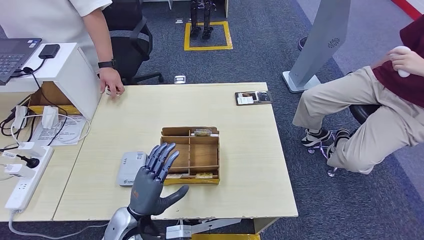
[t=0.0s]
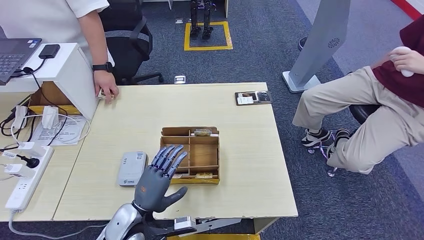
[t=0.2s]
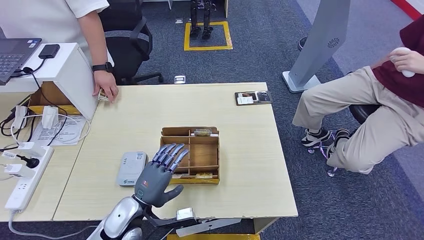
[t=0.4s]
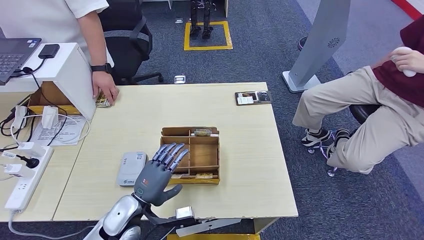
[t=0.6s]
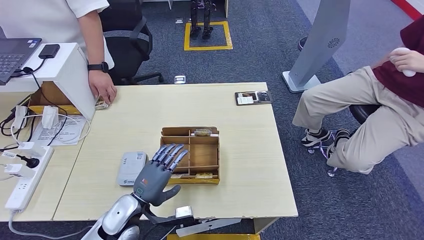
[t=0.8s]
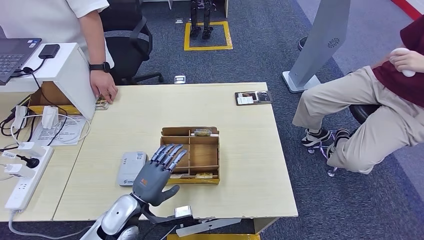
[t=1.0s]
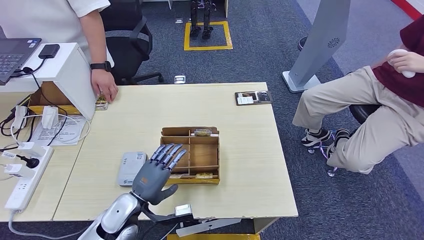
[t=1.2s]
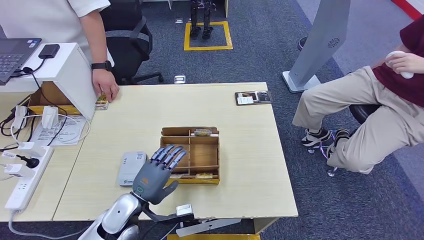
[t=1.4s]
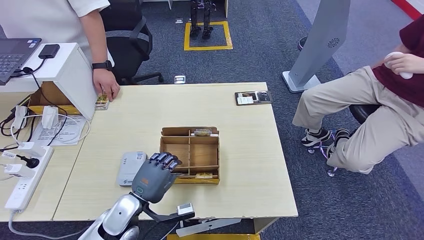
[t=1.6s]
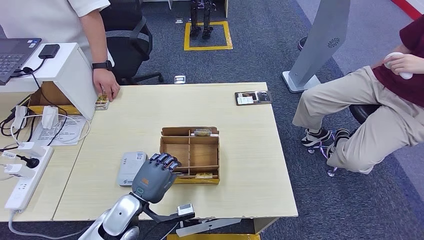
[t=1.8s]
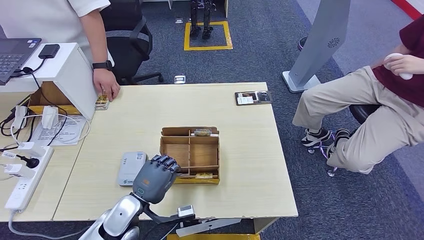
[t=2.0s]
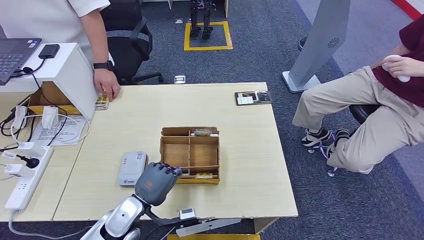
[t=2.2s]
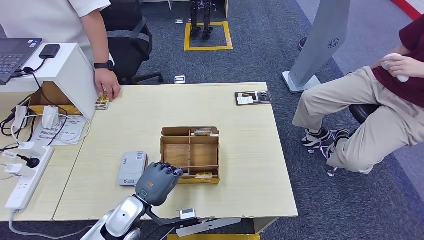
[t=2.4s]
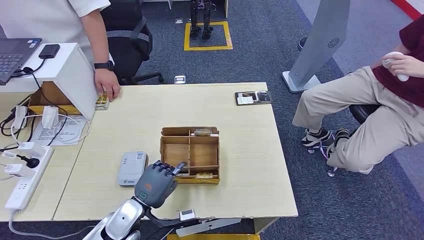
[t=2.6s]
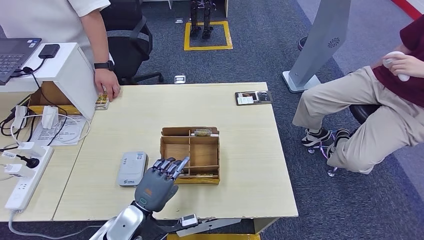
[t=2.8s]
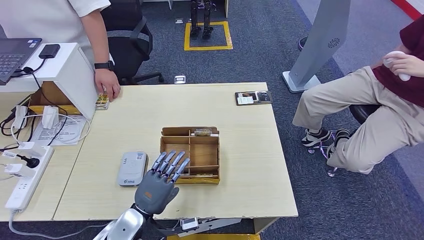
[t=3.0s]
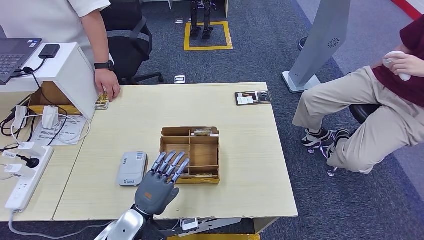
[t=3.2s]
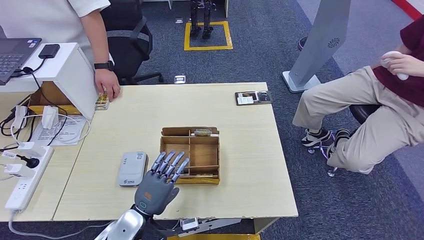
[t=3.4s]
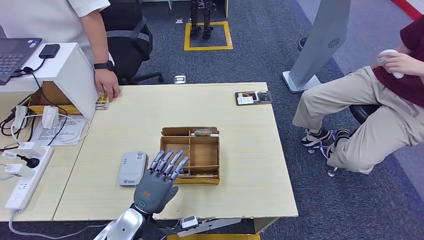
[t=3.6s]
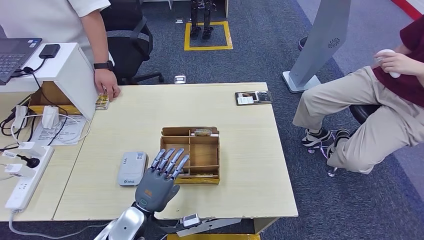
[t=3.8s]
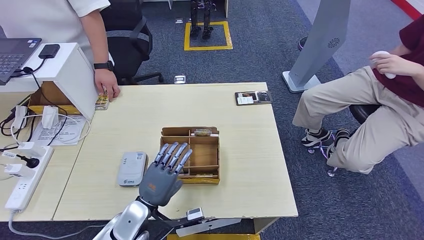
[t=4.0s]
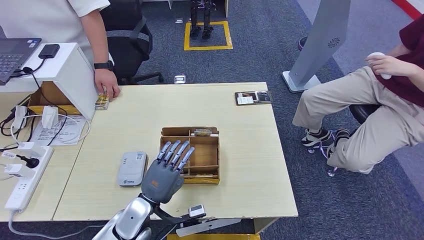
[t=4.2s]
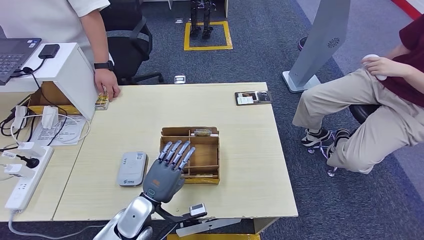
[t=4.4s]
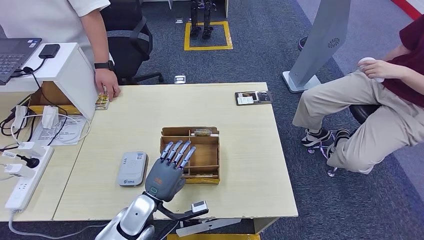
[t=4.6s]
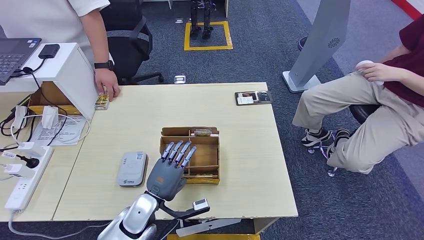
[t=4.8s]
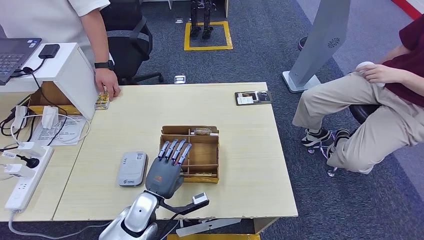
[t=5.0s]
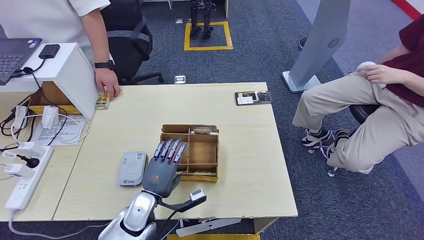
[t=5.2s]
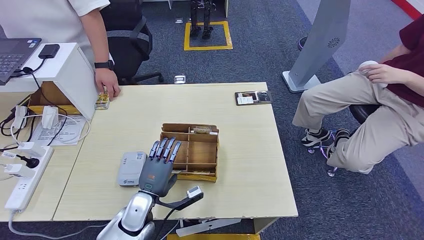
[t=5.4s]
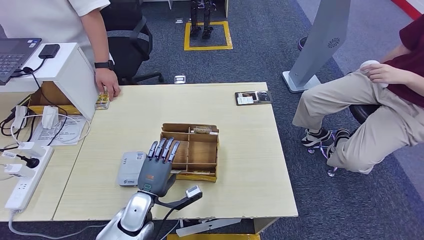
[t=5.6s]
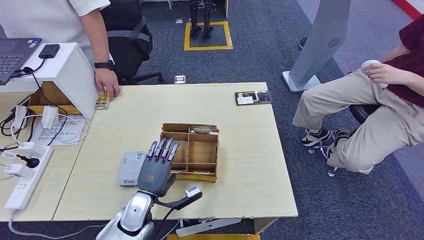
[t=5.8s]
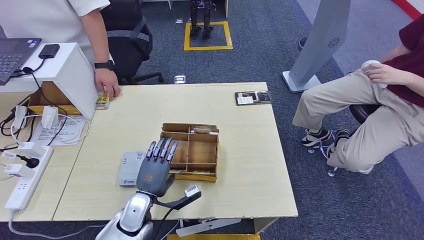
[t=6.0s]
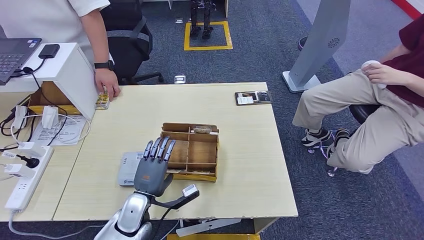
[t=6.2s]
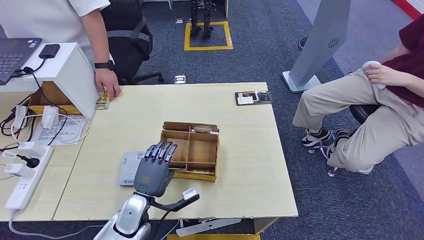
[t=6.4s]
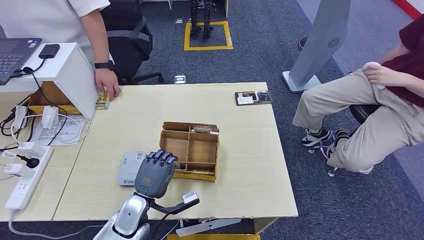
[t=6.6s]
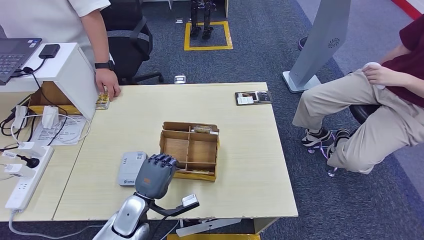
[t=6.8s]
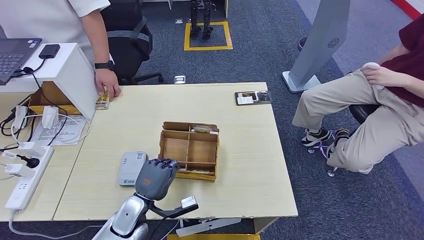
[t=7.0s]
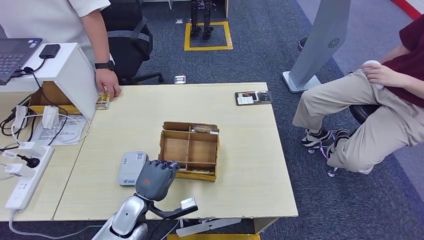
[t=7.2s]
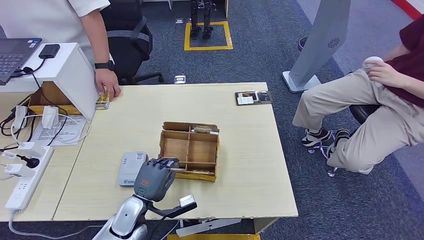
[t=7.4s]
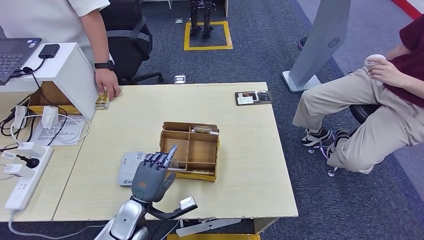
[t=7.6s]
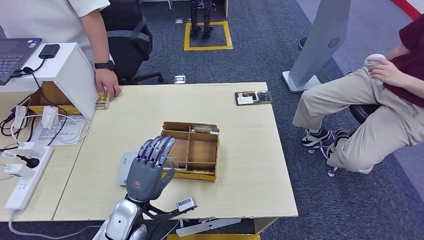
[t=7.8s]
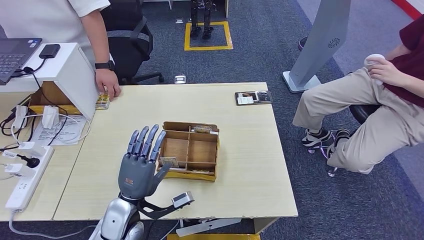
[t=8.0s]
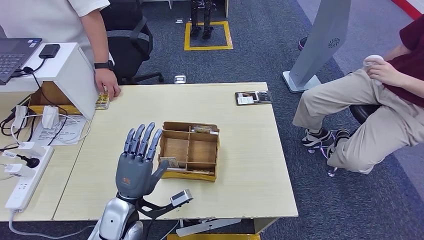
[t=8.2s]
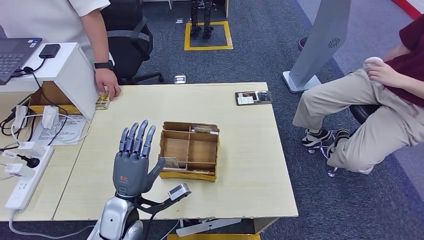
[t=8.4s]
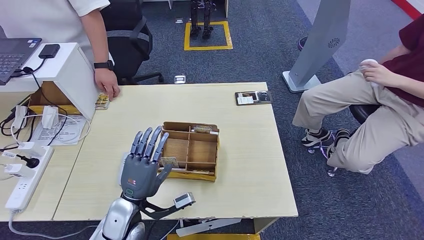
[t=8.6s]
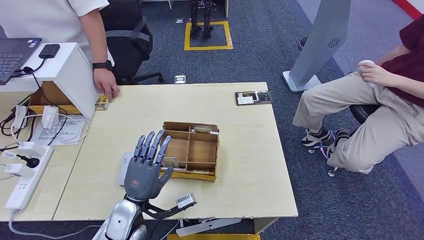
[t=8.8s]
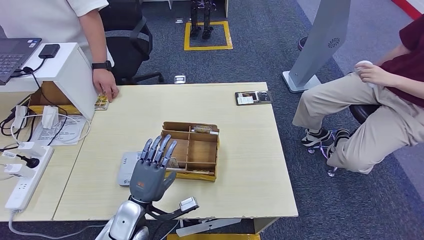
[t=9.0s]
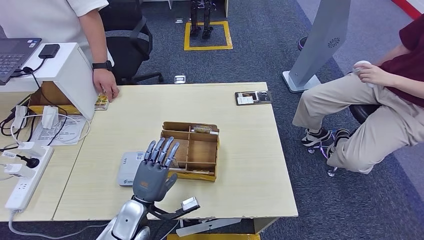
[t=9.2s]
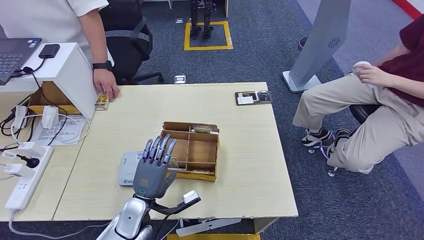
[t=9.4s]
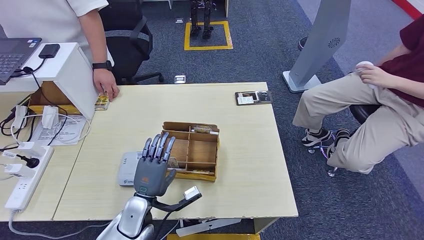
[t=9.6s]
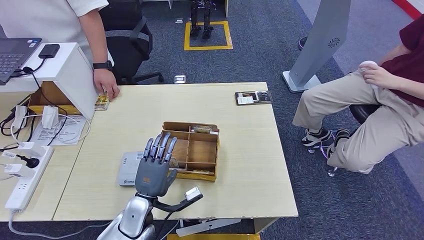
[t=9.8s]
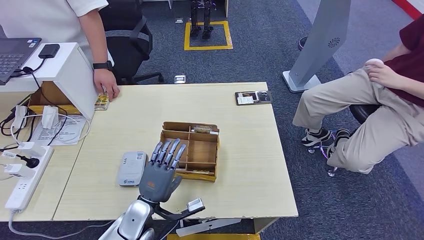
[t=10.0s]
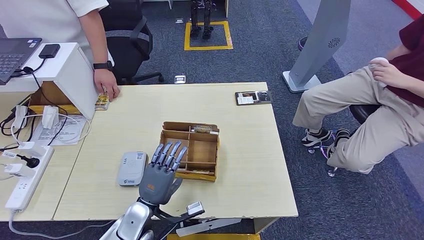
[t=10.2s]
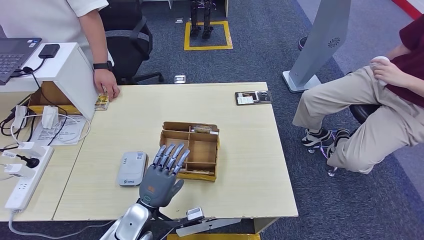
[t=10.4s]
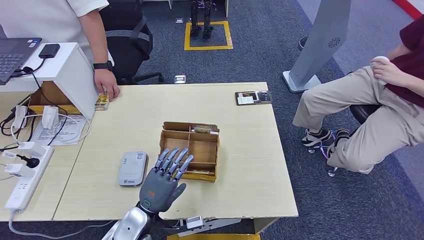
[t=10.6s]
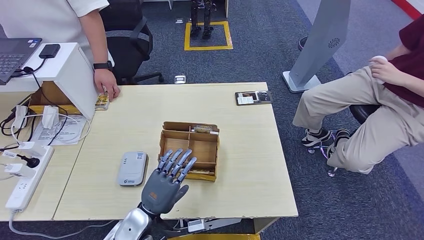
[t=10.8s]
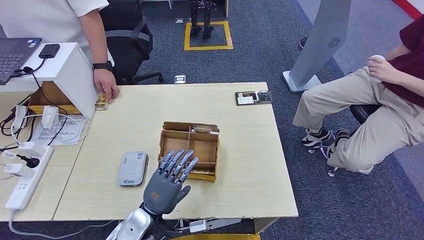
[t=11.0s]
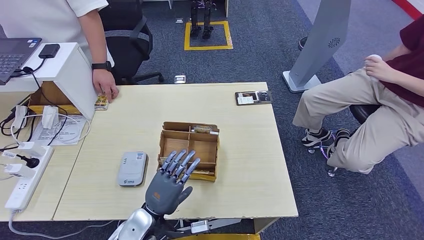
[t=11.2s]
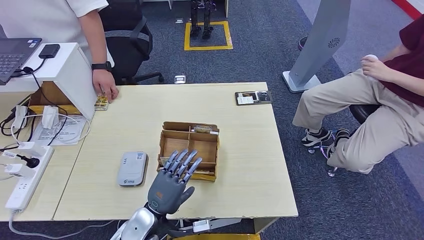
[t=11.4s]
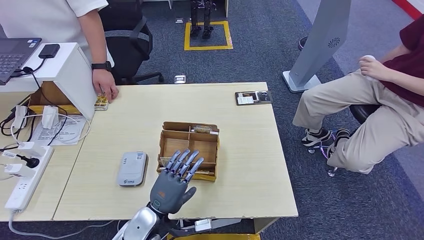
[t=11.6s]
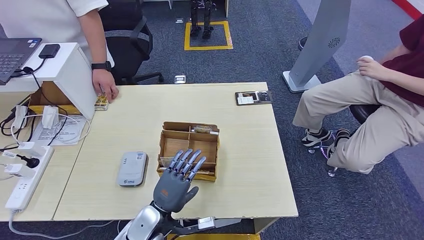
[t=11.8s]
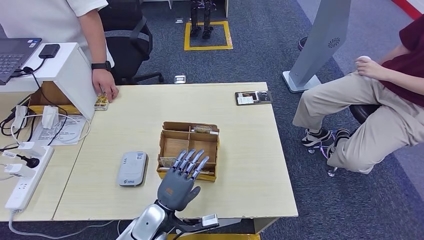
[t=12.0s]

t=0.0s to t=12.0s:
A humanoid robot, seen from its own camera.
t=1.6s to t=7.6s: There are only small adjustments of the hands.
t=9.0s to t=12.0s: There are only small adjustments of the hands.

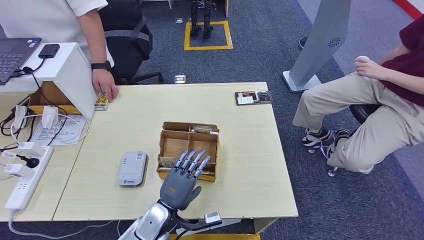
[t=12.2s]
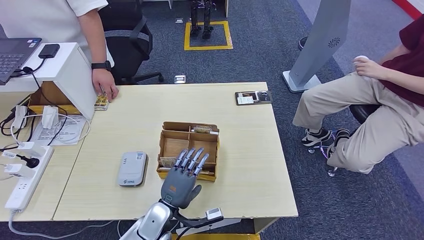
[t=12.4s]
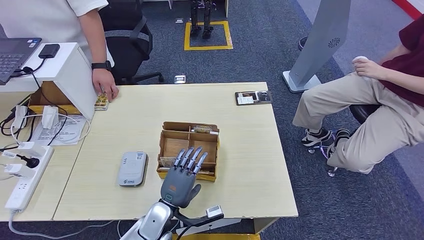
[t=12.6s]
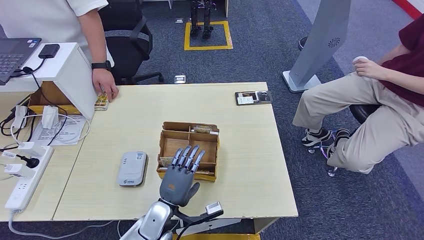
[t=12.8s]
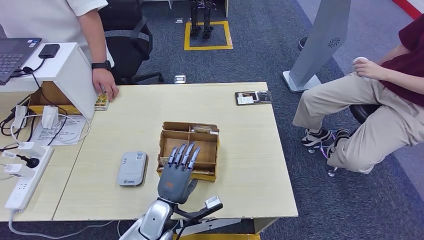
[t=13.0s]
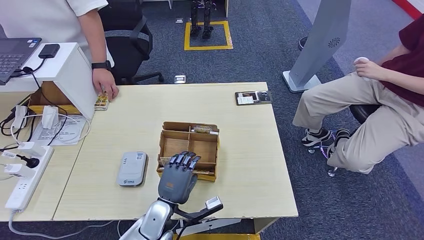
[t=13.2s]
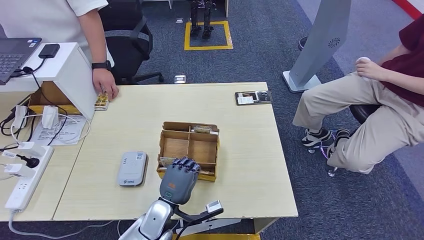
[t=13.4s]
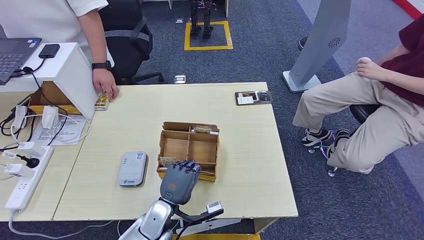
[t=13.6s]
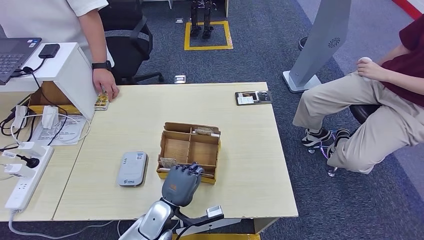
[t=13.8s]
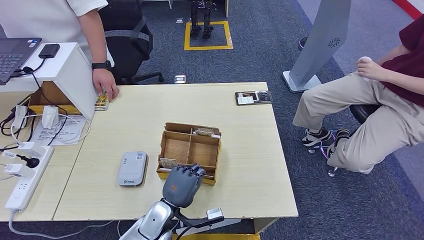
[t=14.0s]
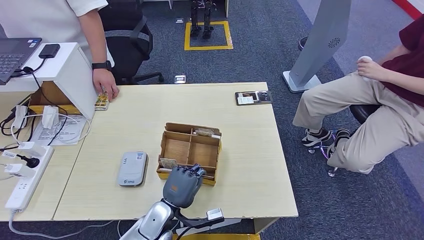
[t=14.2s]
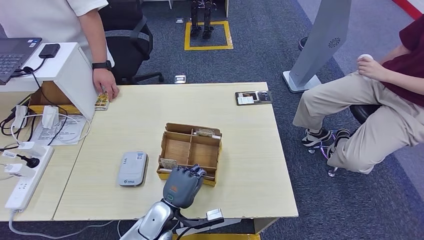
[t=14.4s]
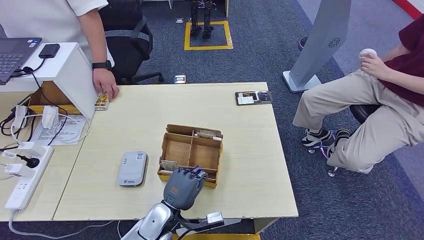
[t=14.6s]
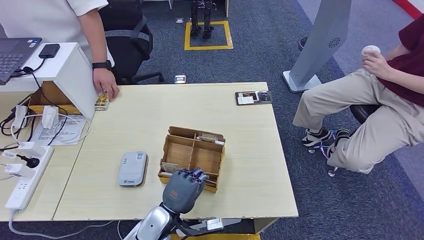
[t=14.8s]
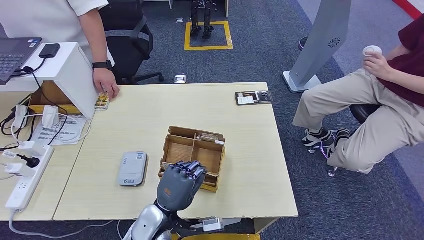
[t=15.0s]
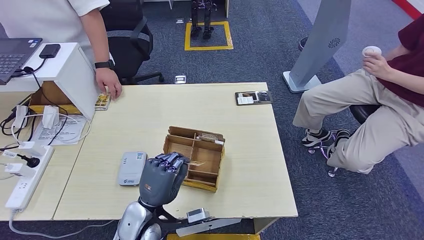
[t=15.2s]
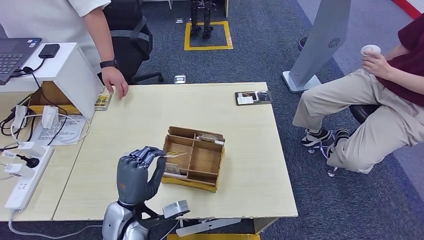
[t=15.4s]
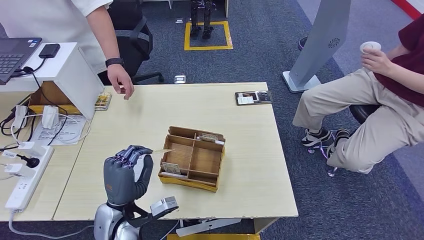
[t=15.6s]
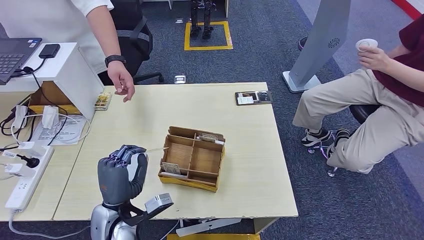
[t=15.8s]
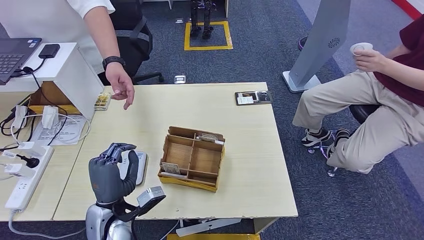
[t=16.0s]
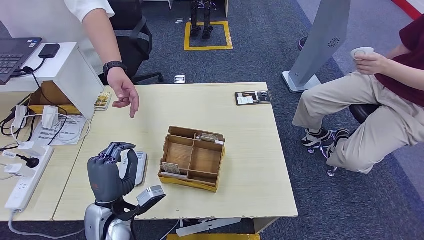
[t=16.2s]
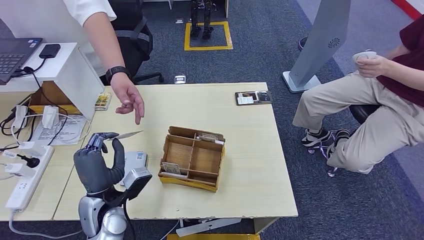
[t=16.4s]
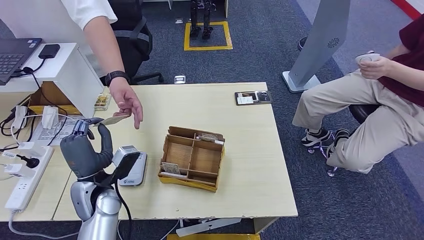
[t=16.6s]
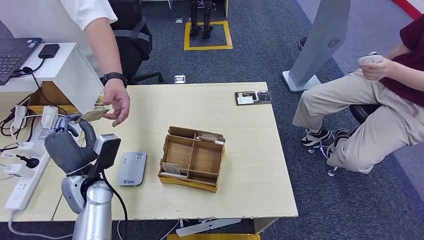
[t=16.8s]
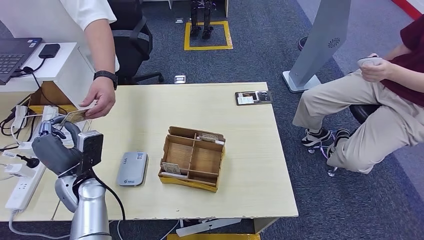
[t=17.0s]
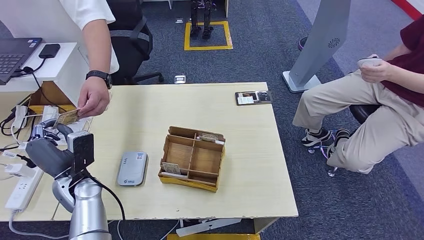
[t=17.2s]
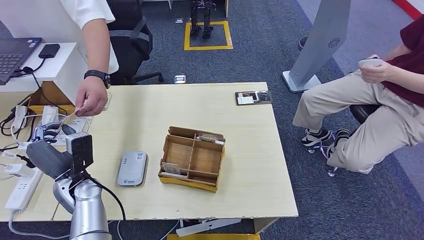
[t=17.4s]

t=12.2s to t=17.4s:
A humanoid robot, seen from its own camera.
Step, t=12.2s to t=15.2s: Pick up the room key from the key card box.
t=12.2s to t=14.0s: There are only small adjustments of the hands.
t=14.0s to t=15.6s: The left hand heads upward and to the left, covering some 10 cm.
t=15.6s to t=17.4s: The left hand goes roughly 15 cm to the left and forward.
